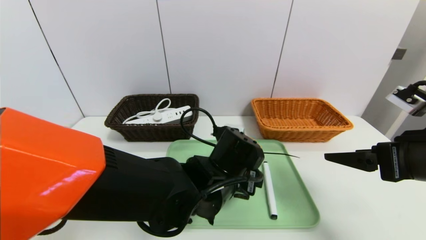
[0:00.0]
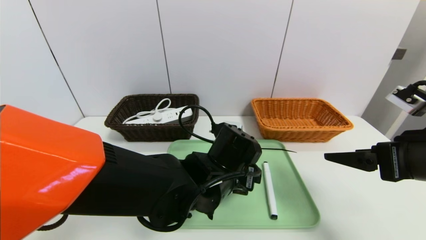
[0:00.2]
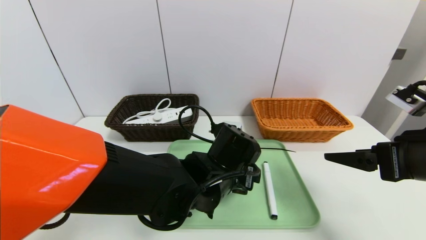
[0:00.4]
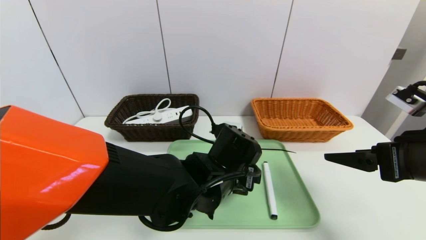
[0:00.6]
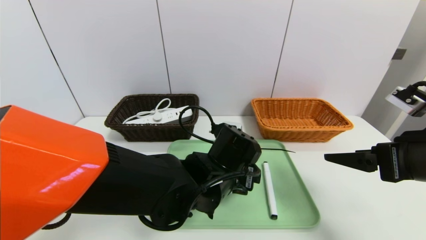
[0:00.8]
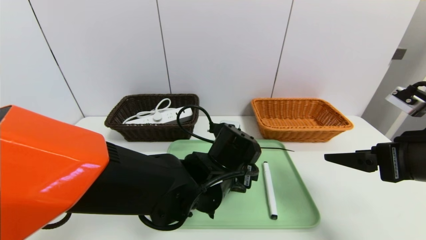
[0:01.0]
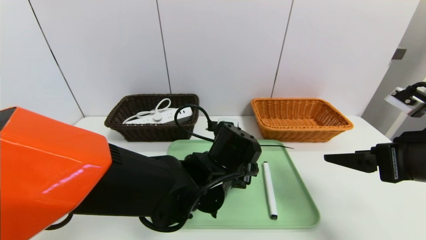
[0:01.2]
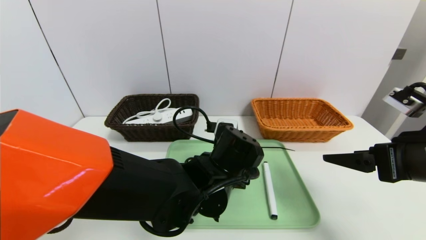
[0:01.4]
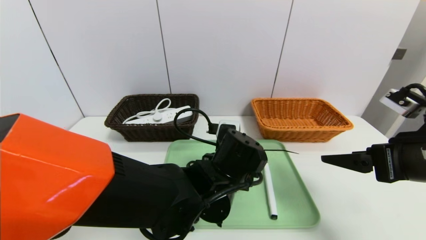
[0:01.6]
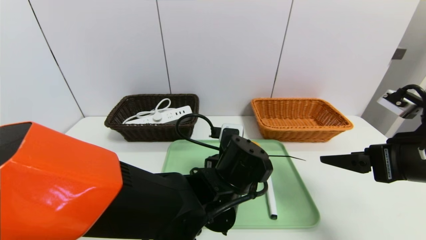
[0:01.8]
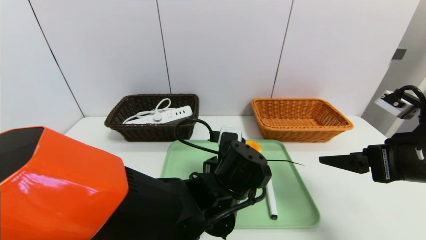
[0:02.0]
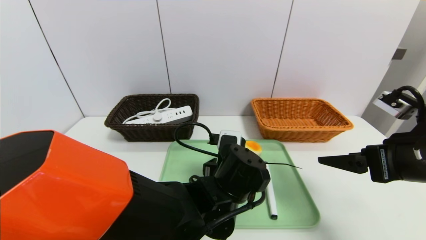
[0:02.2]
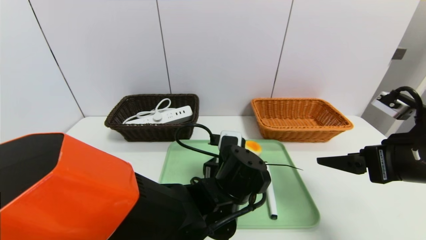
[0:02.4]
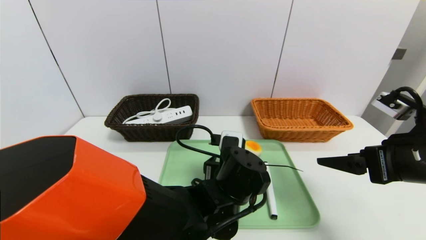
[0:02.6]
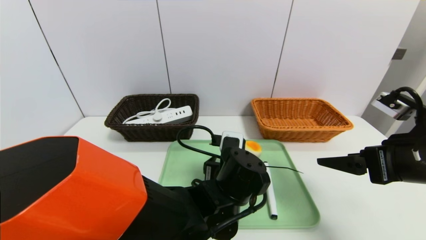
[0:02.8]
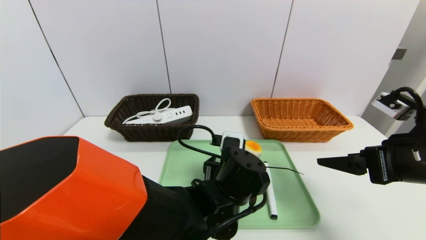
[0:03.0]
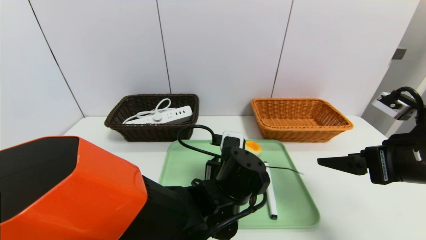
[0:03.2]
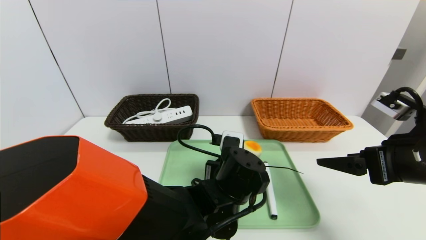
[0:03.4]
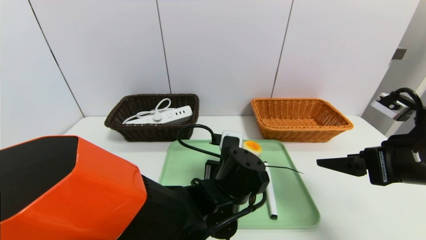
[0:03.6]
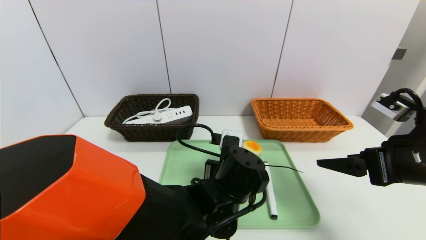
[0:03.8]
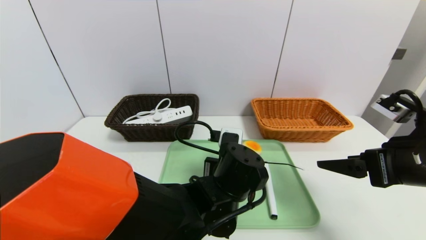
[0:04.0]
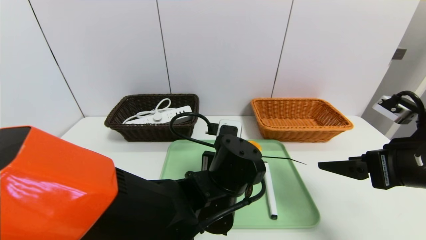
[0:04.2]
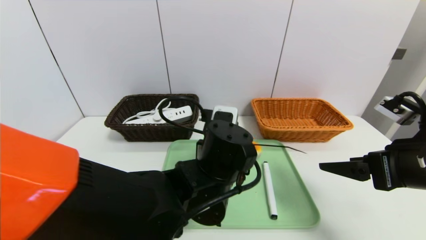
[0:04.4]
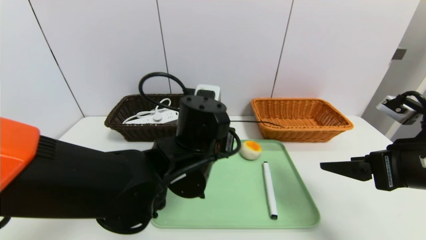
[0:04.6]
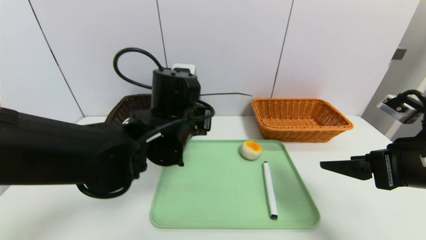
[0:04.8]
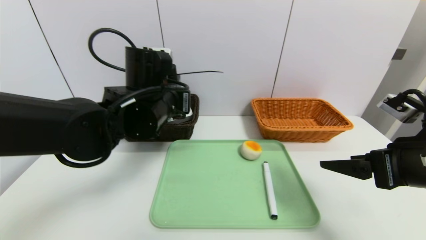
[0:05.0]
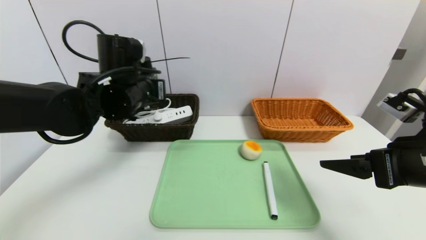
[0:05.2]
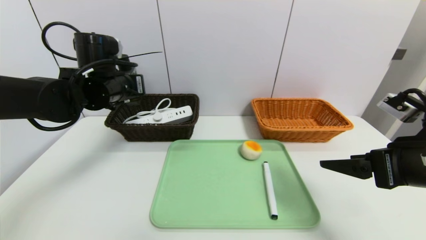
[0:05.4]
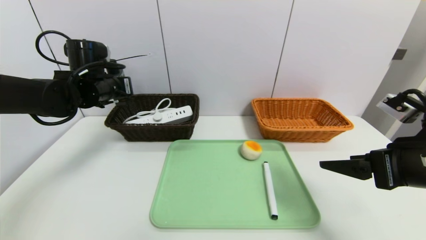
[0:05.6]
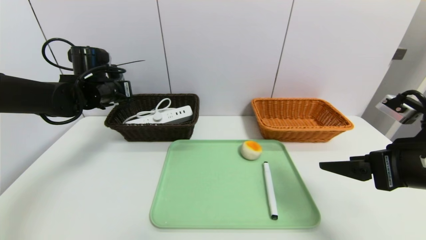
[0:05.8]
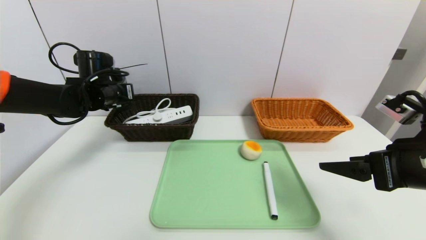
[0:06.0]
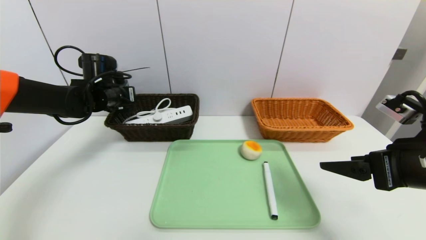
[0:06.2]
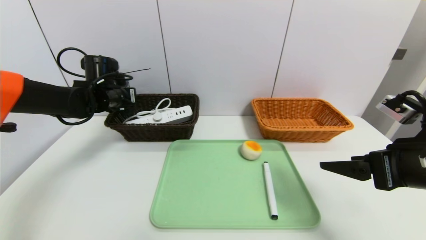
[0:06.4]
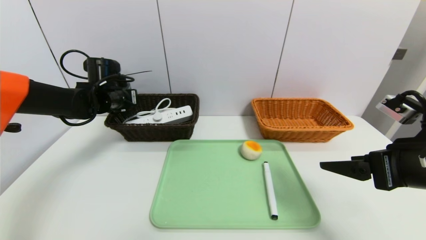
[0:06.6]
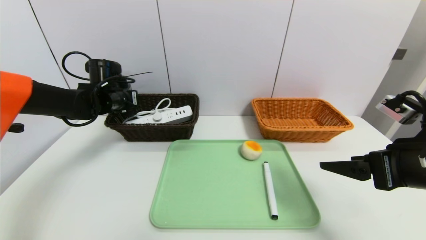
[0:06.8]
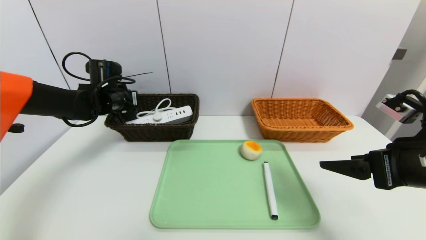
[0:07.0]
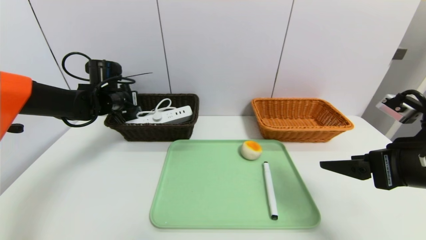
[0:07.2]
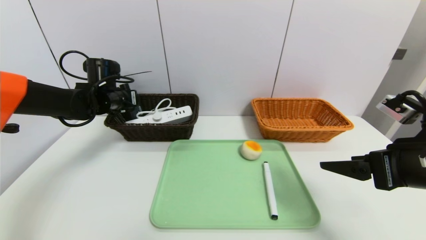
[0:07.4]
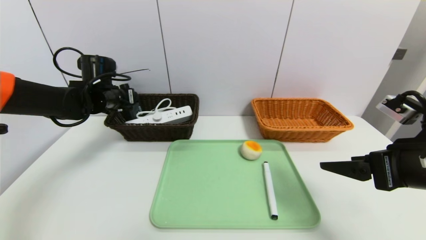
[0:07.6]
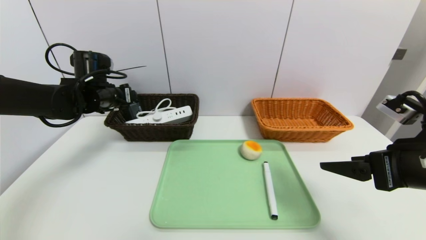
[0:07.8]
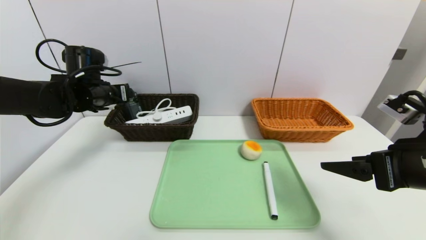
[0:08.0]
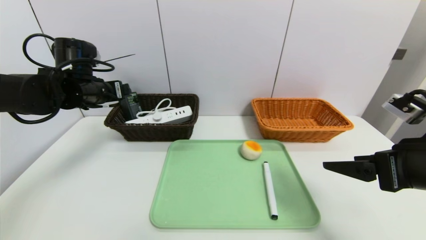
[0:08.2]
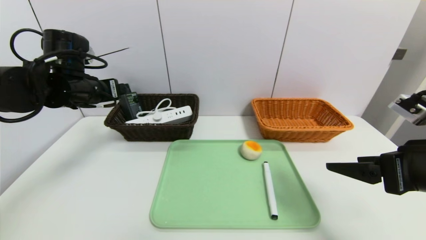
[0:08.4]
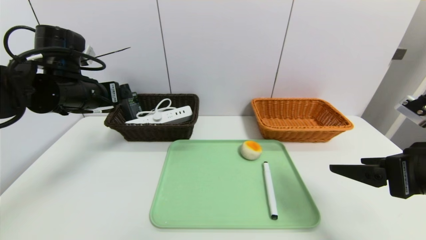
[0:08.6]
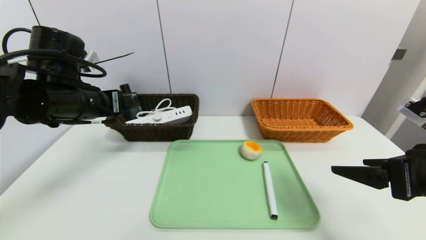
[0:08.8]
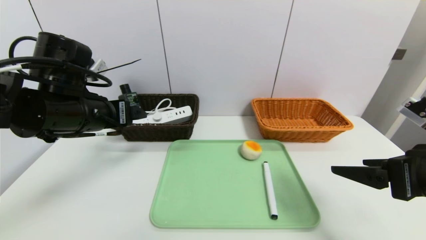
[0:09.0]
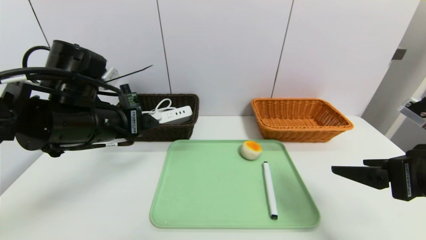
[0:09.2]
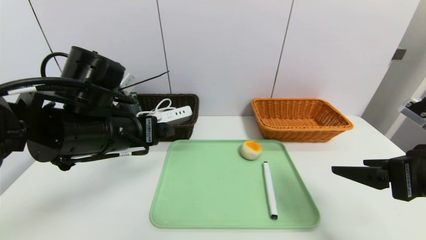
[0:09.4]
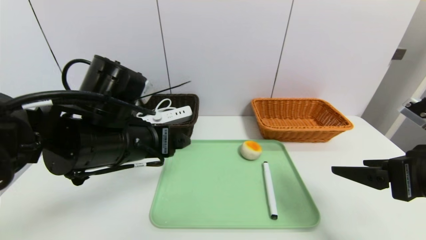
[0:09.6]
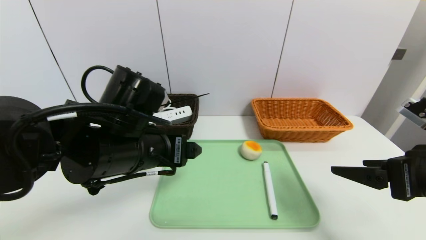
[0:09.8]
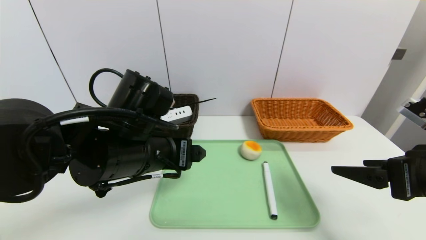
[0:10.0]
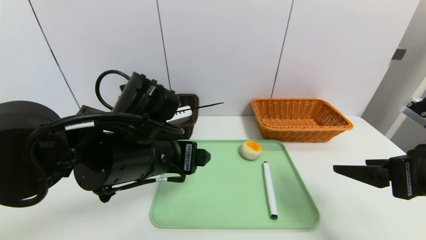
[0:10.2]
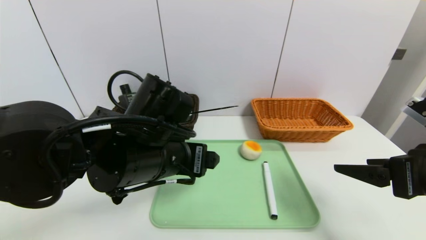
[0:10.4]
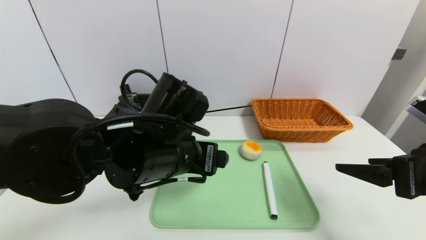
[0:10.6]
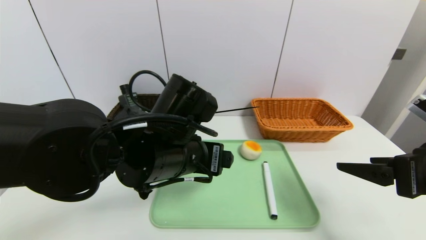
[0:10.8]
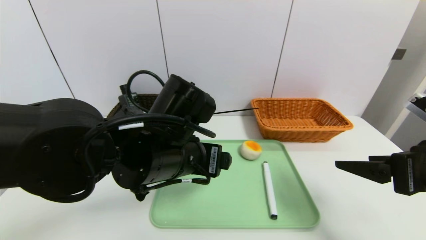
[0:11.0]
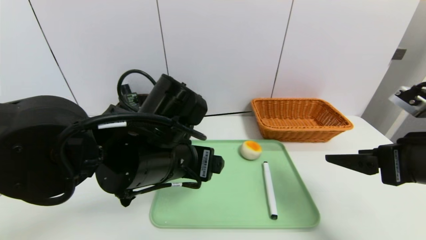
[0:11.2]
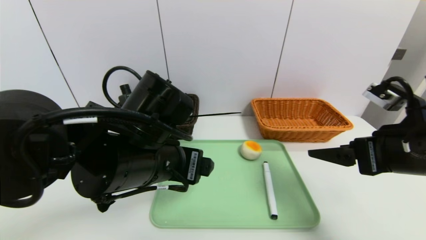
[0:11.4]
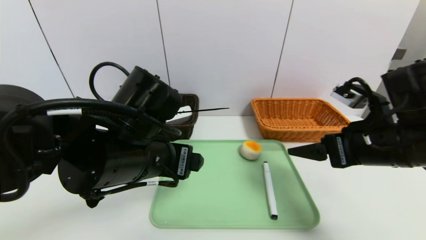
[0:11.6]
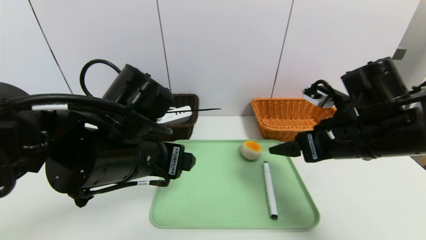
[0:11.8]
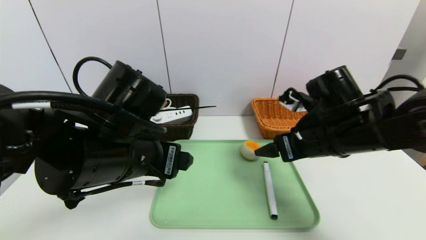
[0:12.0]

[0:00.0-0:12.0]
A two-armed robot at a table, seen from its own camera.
Task of the whole recording: place the food in the right basket with the right gripper, and place the non food items in the left basket with the left gripper.
Step, 0:00.0 to 0:07.6: Grasp the hard cleanser and put it in the left basket.
0:00.0 to 0:03.0: There are only small adjustments of the grippers.
0:03.0 to 0:04.4: The left gripper goes some 5 cm upward, and closes its fingers.
0:04.4 to 0:06.0: The left gripper heads to the left and forward, covering about 35 cm.
0:06.0 to 0:07.6: The left gripper opens up.
0:07.6 to 0:09.0: The left gripper heads backward, covering roughly 15 cm.
0:09.0 to 0:10.4: The left gripper travels to the right by about 10 cm.
0:10.4 to 0:12.0: The right gripper travels forward and to the left by approximately 15 cm.

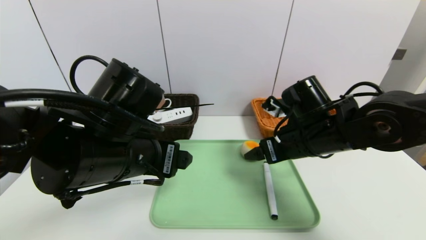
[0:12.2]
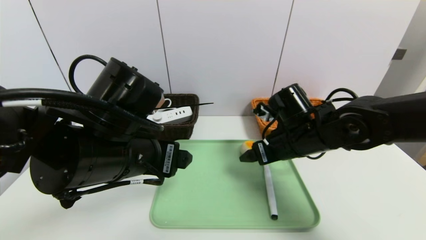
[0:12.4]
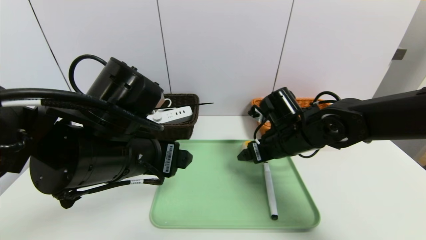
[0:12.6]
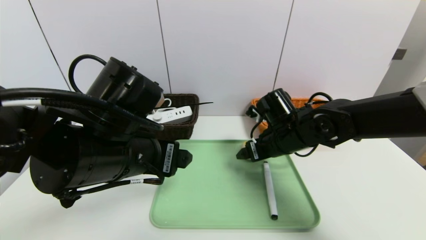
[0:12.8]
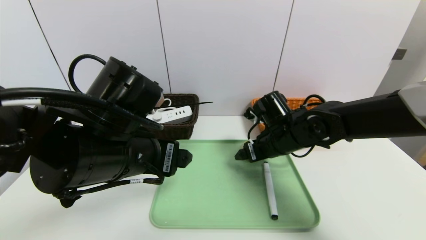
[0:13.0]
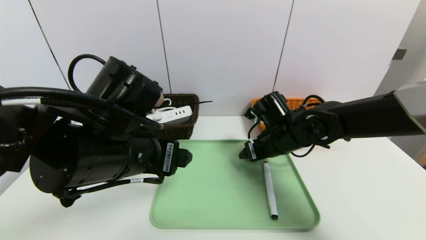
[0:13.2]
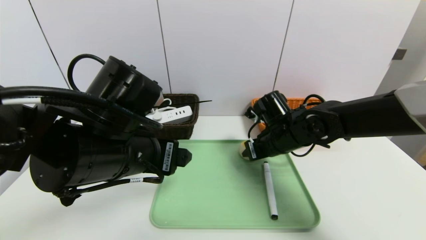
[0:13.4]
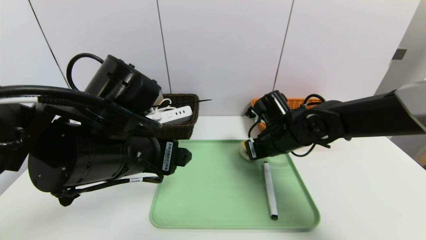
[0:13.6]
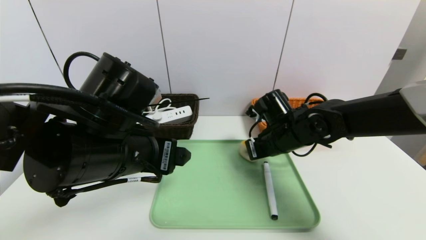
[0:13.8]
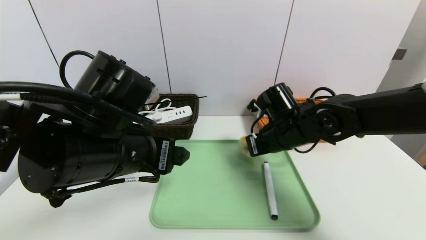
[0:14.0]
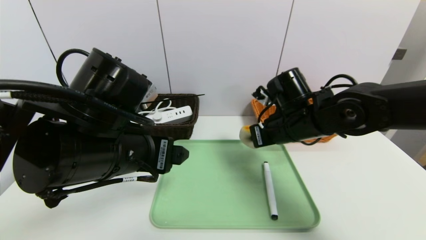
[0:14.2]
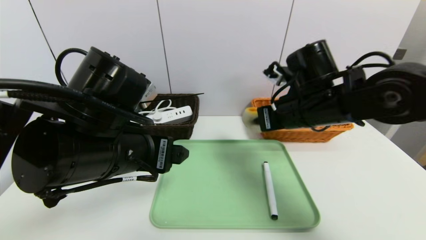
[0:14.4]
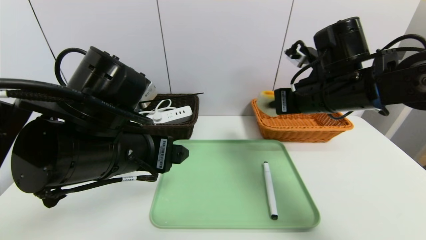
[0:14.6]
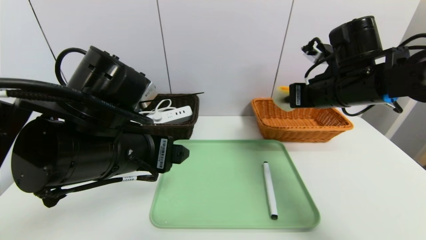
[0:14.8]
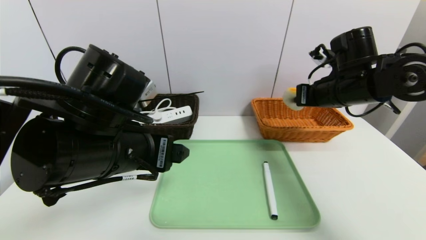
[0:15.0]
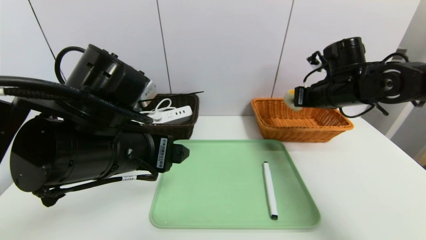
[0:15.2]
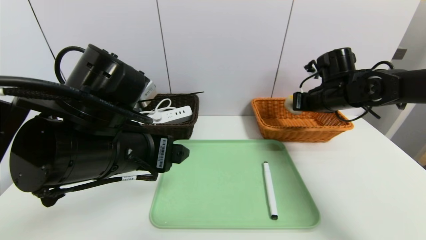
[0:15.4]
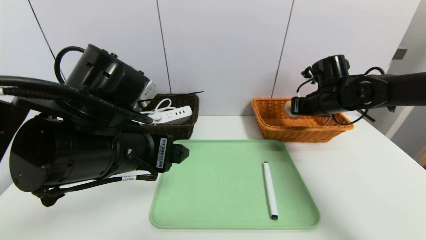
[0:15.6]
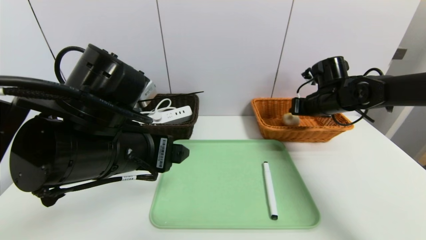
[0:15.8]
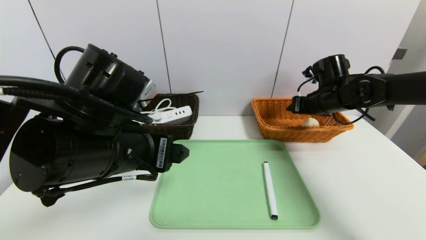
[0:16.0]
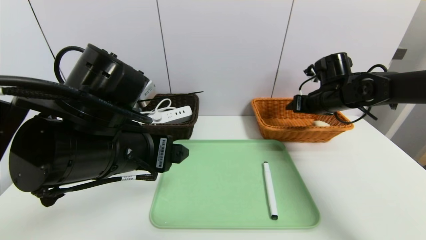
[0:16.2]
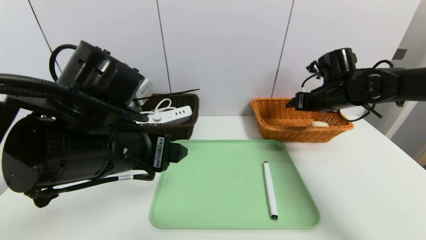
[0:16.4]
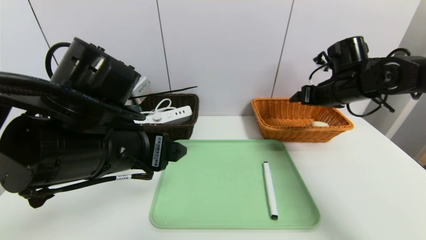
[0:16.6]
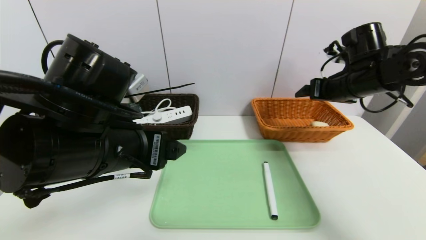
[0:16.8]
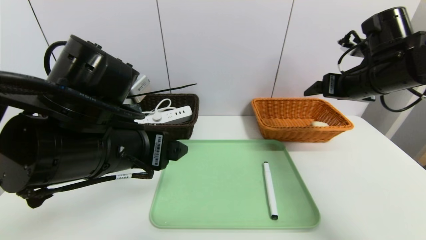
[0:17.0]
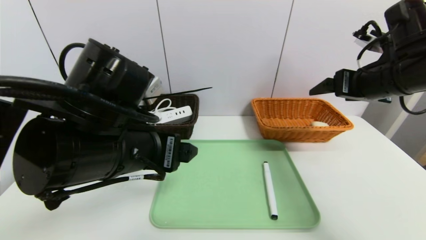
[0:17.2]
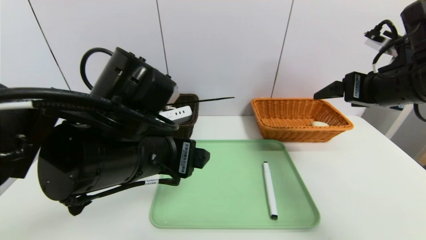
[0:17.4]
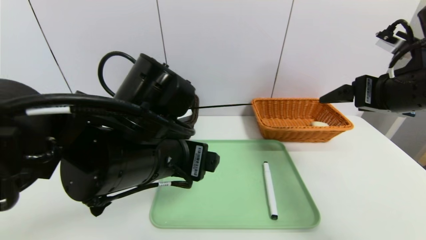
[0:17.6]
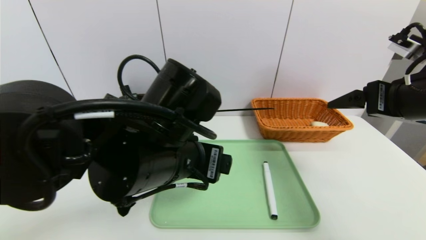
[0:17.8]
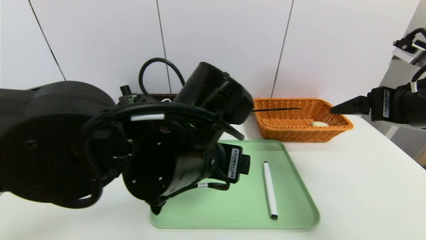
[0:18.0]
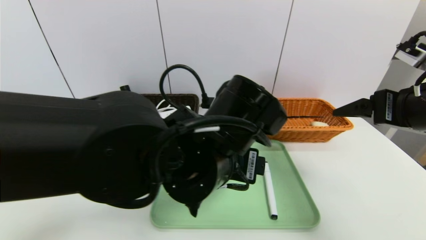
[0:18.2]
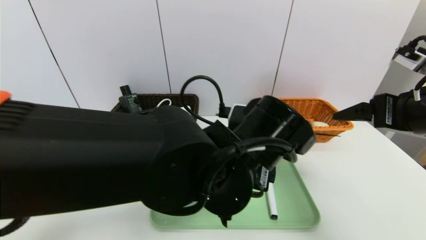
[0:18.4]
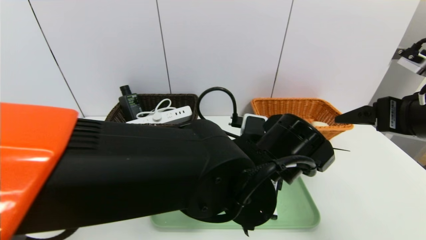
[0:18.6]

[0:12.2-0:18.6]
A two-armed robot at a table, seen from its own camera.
Task of the whole recording: place the food in the right basket with the right gripper, and place the non food items in the left basket with the left gripper.
Step, 0:12.2 to 0:16.2: Grasp the egg yolk pastry and put it in the right basket.
0:12.2 to 0:13.8: The right gripper heads forward, covering about 5 cm, and closes.
0:13.8 to 0:15.4: The right gripper travels to the right, forward and upward by approximately 15 cm.
0:15.4 to 0:17.0: The right gripper travels backward and upward by approximately 10 cm, and opens up.
0:17.0 to 0:18.6: The left gripper heads to the right, covering some 20 cm. The right gripper goes approximately 10 cm backward.
